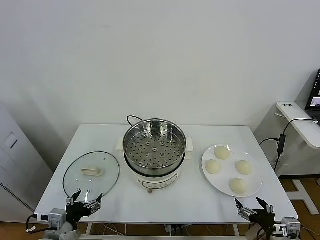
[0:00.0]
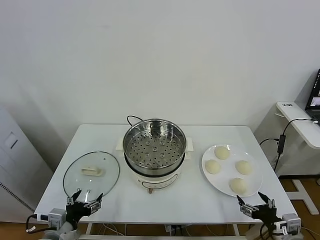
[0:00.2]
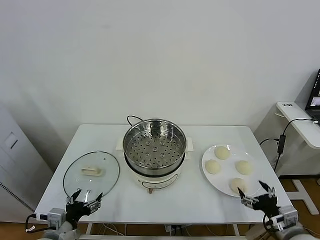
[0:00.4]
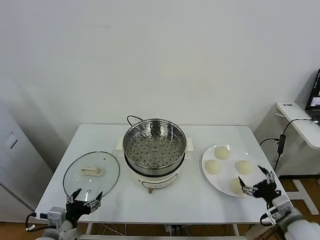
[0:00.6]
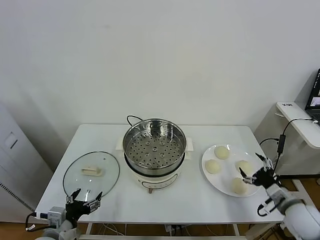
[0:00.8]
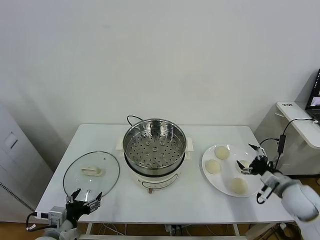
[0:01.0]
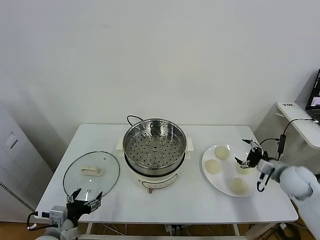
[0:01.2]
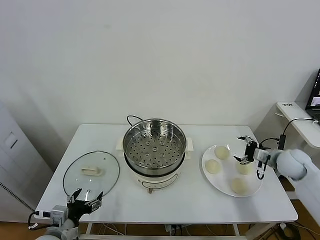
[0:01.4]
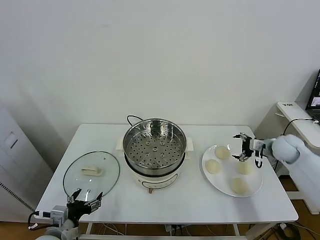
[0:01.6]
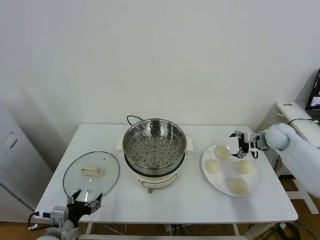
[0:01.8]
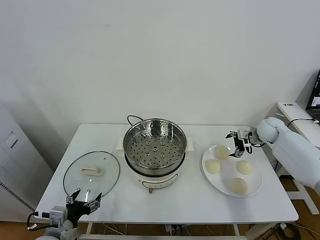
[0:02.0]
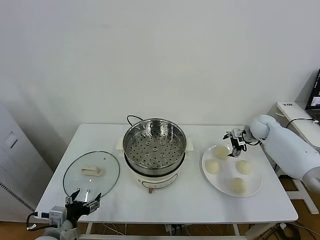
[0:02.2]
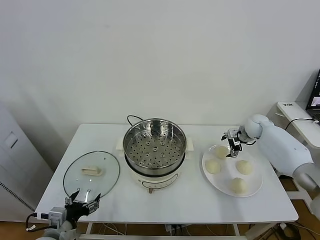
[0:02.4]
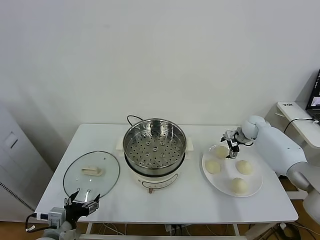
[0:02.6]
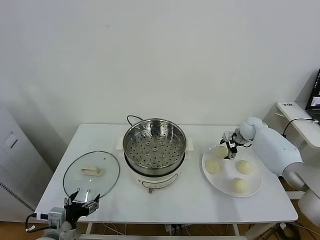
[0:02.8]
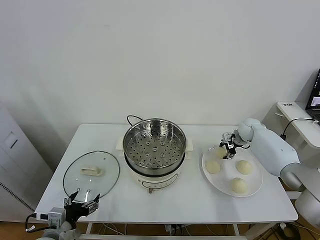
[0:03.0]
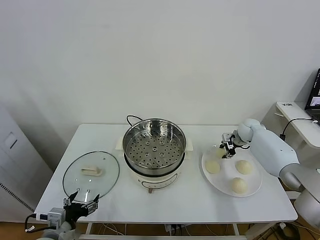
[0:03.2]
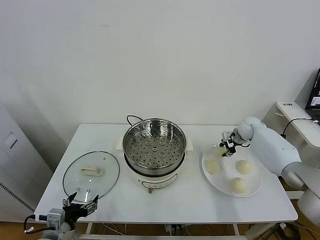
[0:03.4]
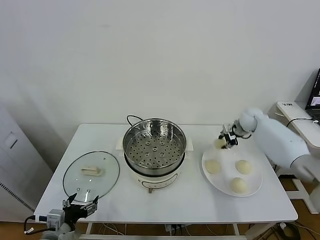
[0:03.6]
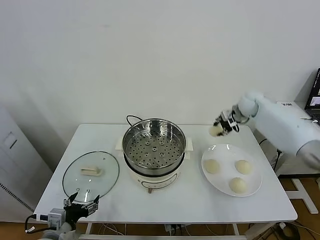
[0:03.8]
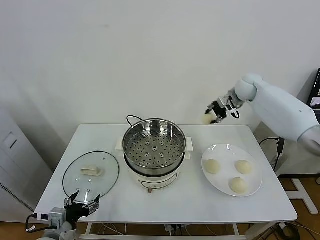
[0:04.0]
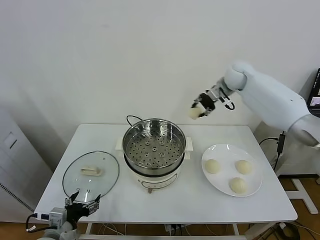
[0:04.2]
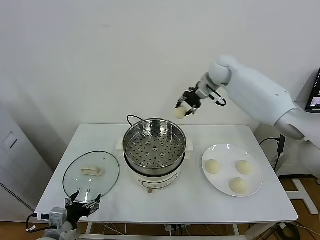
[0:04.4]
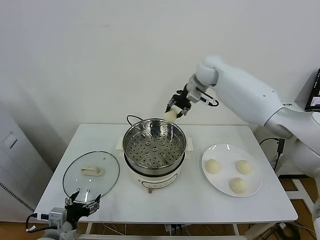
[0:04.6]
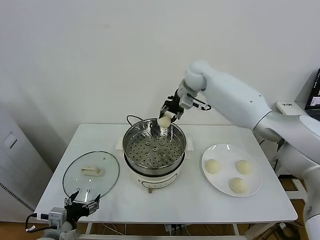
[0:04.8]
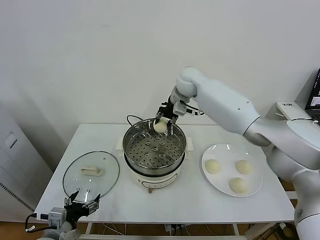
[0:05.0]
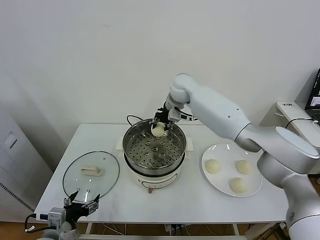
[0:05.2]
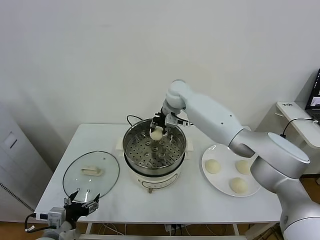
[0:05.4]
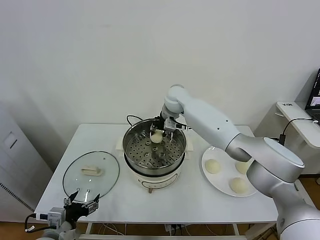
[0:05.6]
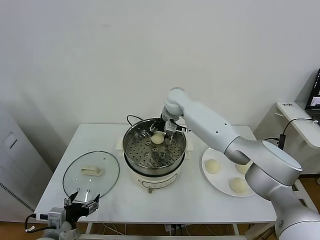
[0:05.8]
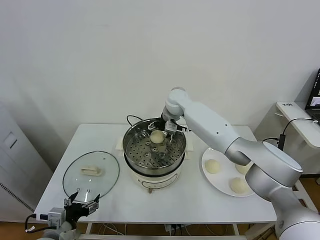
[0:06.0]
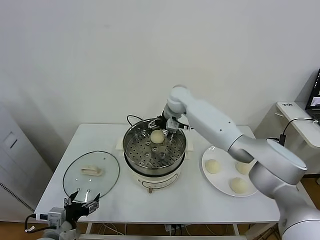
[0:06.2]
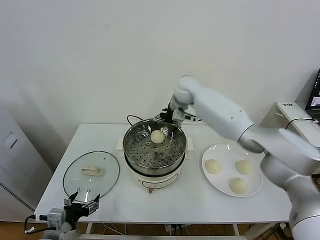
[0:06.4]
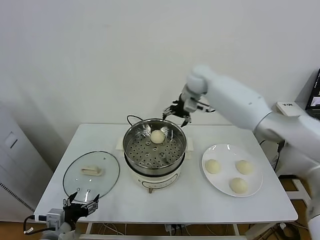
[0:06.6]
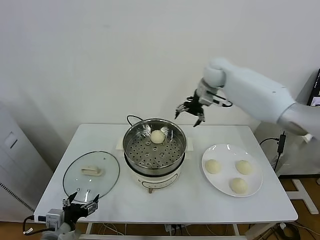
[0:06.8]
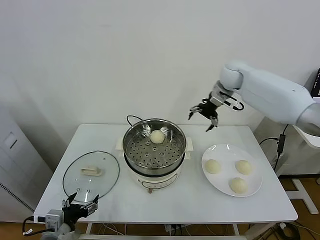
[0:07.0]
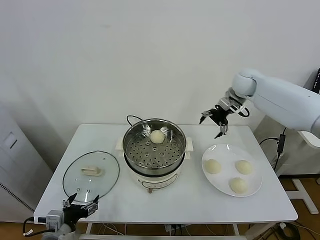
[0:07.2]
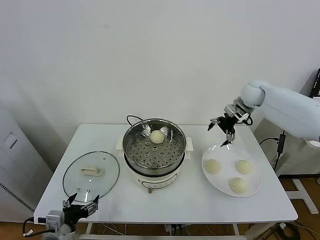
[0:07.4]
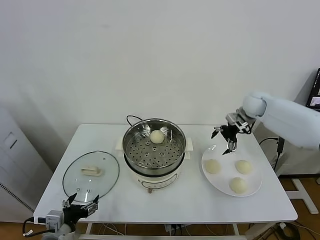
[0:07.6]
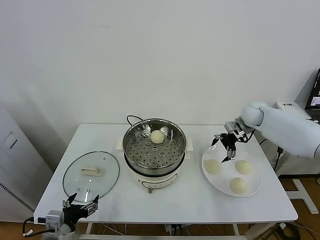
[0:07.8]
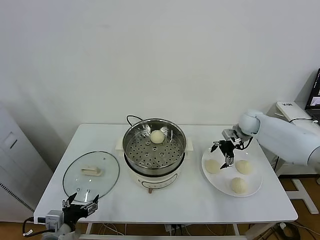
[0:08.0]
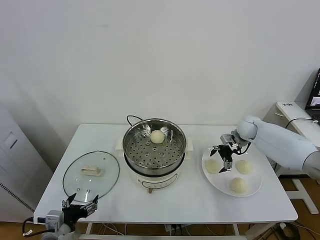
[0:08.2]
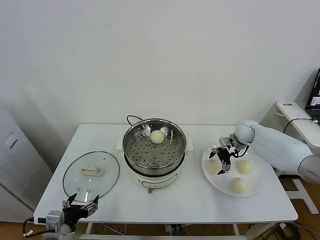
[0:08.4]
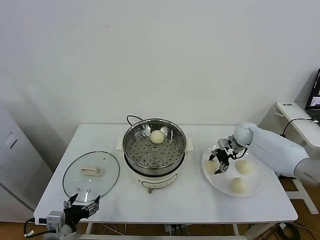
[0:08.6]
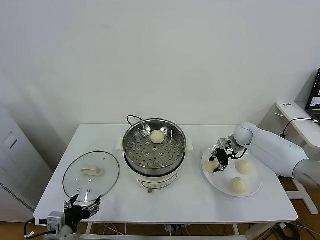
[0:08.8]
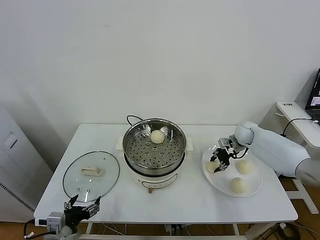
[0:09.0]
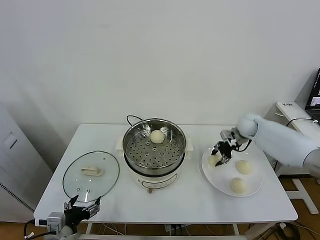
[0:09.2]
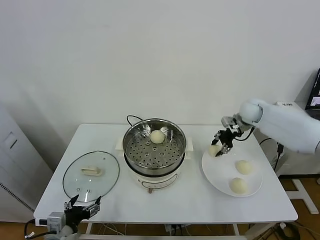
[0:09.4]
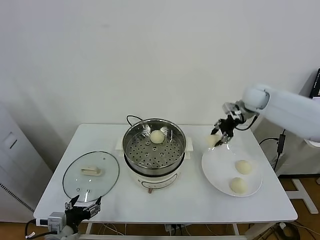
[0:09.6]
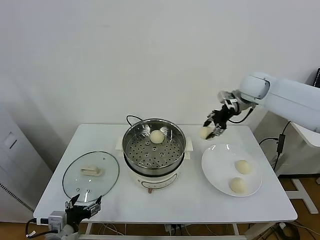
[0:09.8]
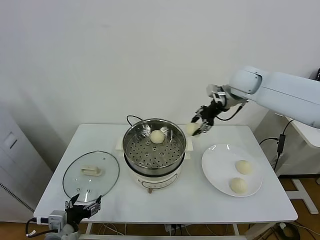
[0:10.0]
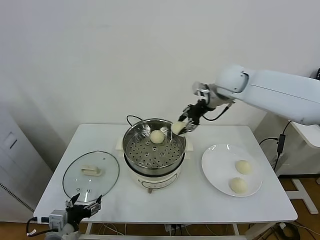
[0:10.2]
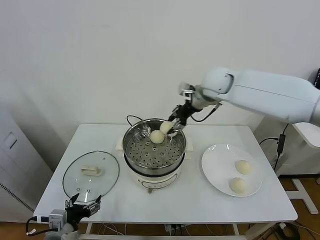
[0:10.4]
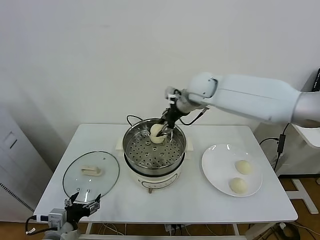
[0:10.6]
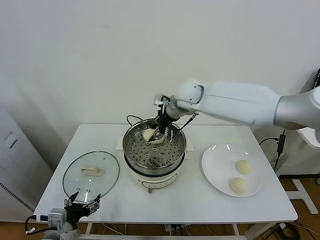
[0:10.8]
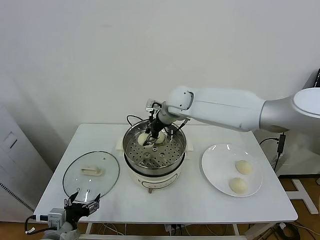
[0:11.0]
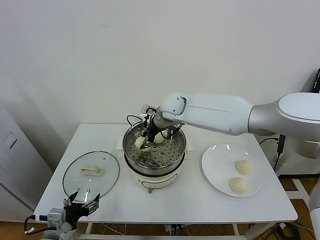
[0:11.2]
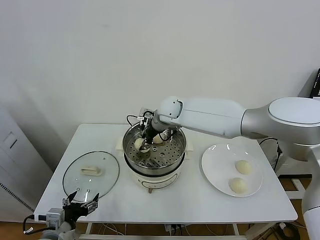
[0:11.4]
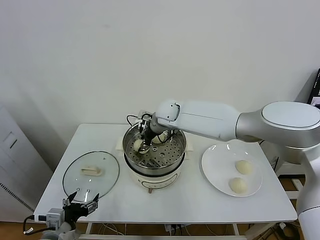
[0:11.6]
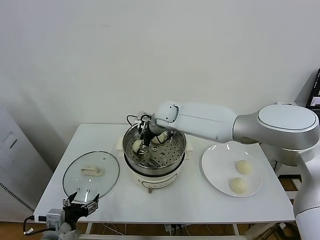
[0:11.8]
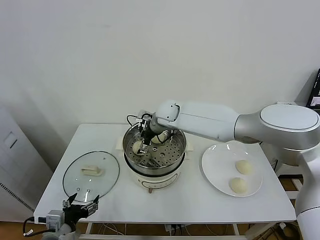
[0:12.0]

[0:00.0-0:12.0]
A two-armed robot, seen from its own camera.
Task of the whole recording: take steamed baozi put them in steamer.
Step, 0.0 to 2.8 s: Grasp the baozi in the plate with right gripper.
Step, 3.2 to 6.0 s: Place the baozi on the steamer with right gripper.
Step, 6.2 to 8.6 s: Grasp the baozi in the plate with right gripper.
Step, 8.8 to 12.0 s: Place the baozi on the steamer with right gripper.
1.6 to 3.0 s: The right gripper heads forward, to the left and downward, covering approximately 15 cm, and closes up.
3.0 to 4.4 s: The right gripper travels upward and to the left by some 35 cm.
4.4 to 6.0 s: The right gripper travels downward and to the left by about 15 cm, and opens its fingers.
6.0 to 7.6 s: The right gripper is displaced to the right by some 30 cm.
7.6 to 9.0 s: The right gripper moves downward, some 10 cm, and closes.
9.0 to 10.4 s: The right gripper is displaced upward and to the left by about 30 cm.
10.4 to 12.0 s: The right gripper shifts roughly 15 cm to the left and downward, and opens up.

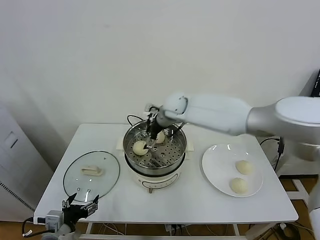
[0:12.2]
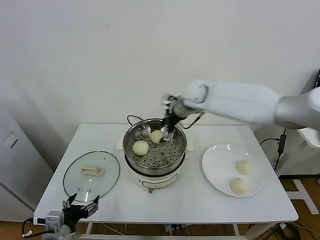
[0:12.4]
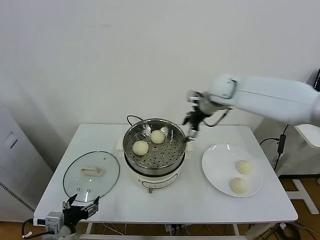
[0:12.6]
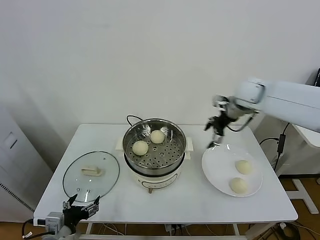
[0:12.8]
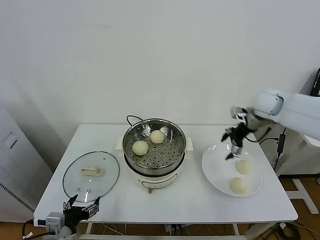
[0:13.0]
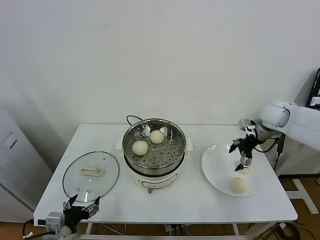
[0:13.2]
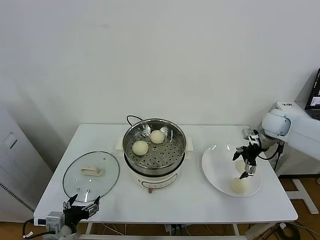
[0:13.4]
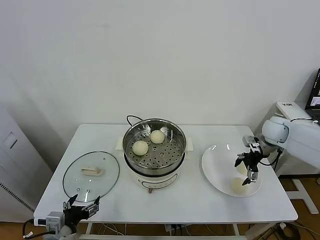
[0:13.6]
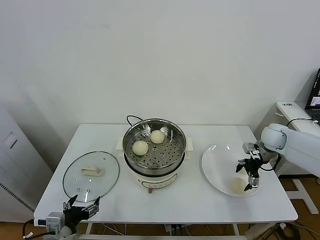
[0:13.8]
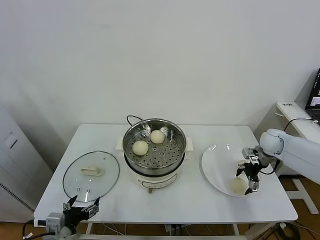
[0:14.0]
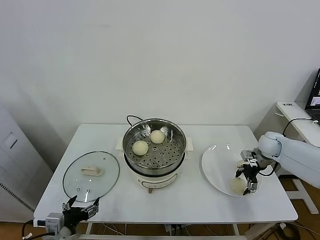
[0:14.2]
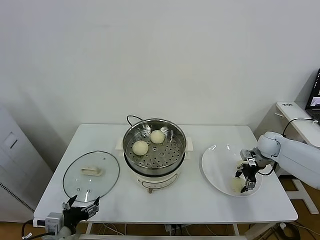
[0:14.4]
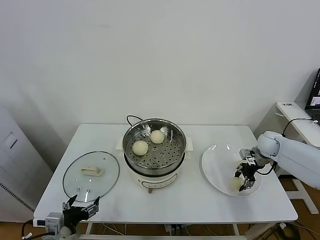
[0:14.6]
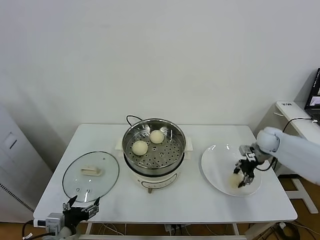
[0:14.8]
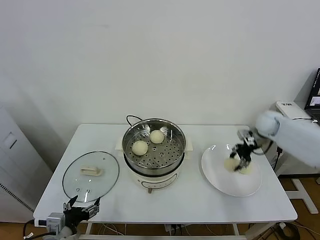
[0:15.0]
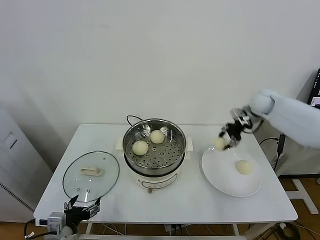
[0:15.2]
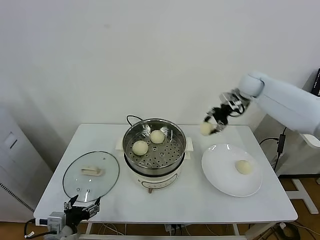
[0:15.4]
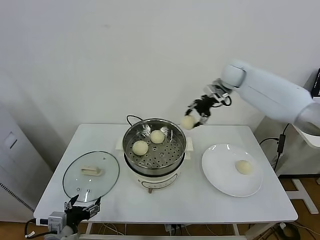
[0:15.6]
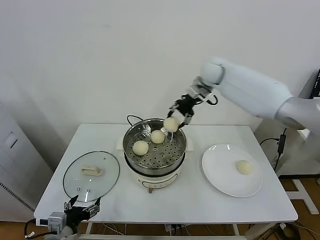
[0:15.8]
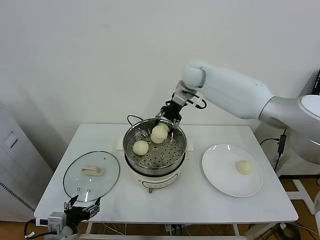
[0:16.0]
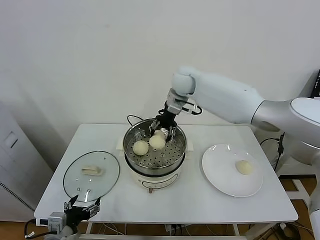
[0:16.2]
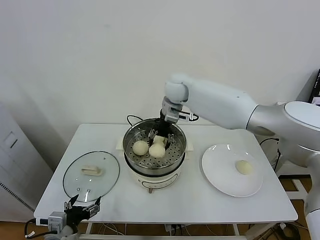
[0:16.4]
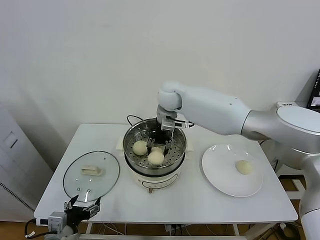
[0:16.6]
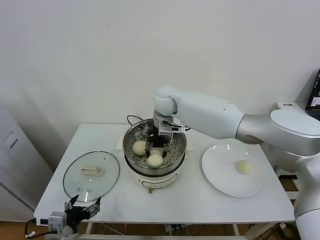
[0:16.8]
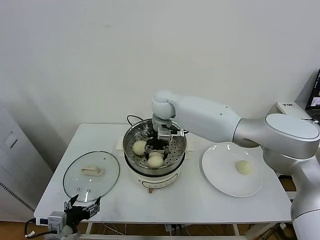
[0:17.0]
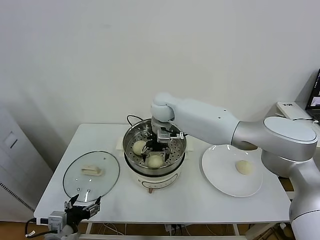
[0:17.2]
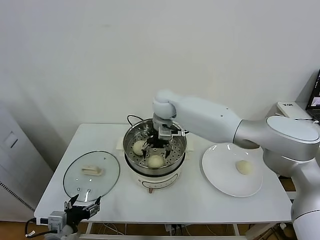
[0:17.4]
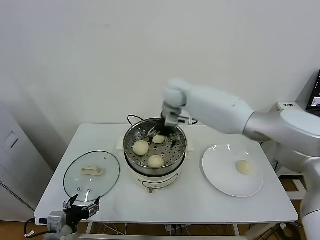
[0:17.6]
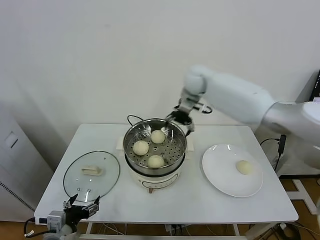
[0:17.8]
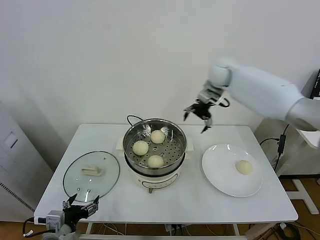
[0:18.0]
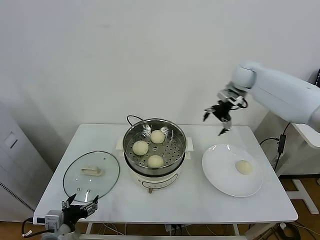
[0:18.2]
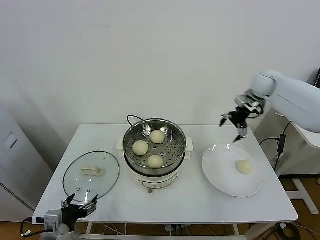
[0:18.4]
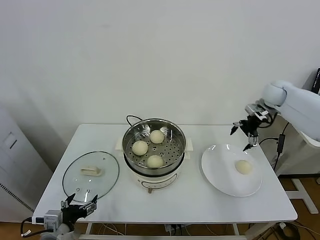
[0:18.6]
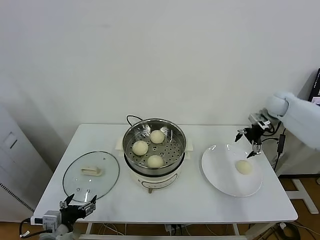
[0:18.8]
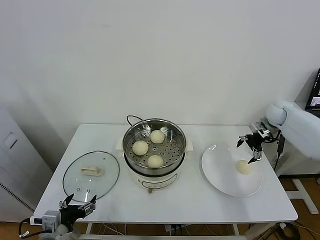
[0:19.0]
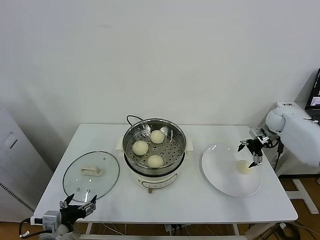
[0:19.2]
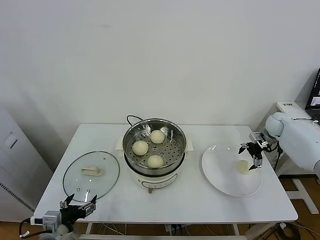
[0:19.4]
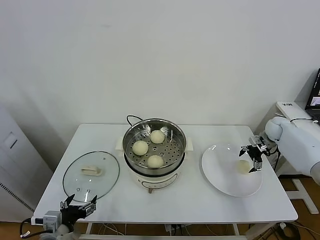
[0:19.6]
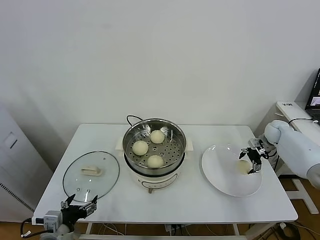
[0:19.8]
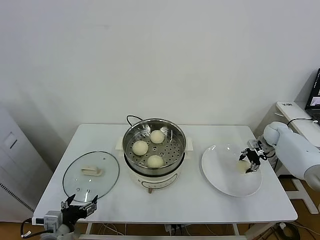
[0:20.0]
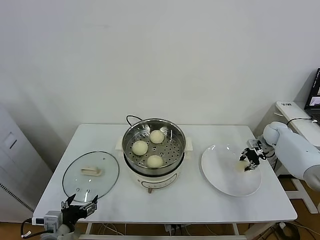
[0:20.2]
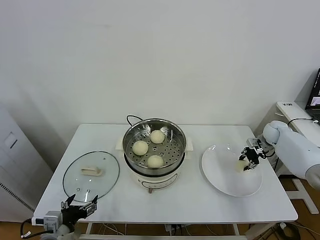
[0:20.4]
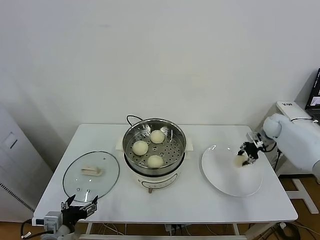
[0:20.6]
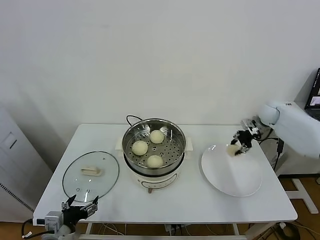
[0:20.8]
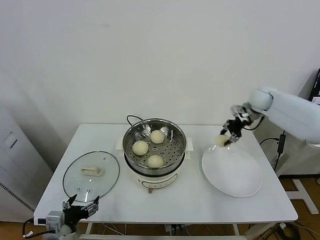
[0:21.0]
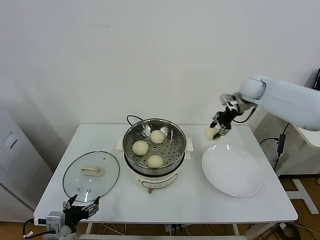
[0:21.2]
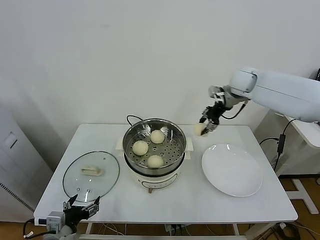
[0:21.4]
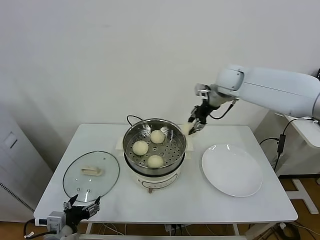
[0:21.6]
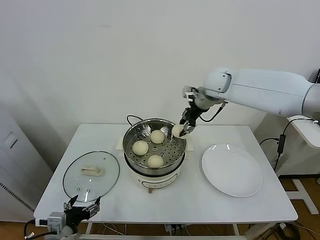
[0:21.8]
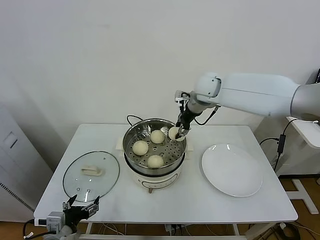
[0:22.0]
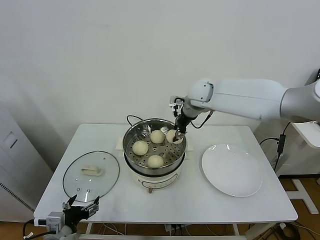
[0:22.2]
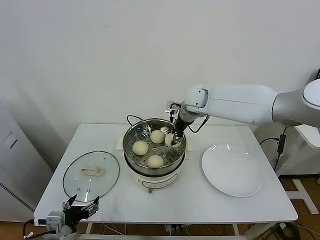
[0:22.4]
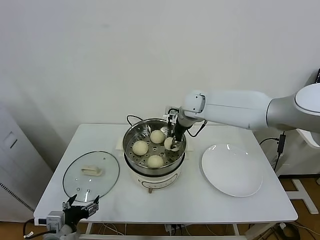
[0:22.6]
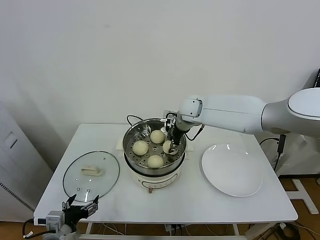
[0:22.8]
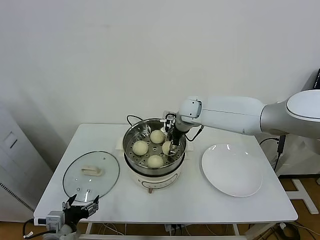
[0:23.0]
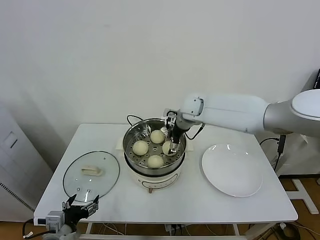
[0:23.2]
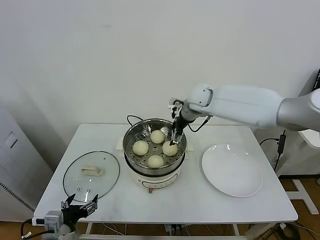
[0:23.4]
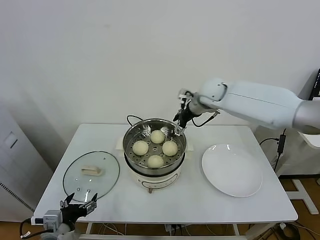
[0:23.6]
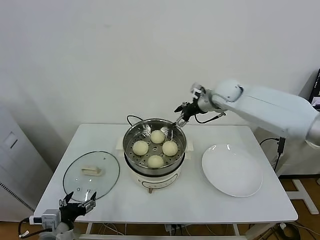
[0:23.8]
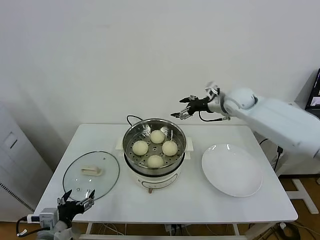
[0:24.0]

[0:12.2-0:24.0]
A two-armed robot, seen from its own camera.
Task of the whole recording: take steamed baozi put them in steamer.
Step, 12.2 to 14.4 s: Grasp the baozi in the plate with right gripper.
Step, 14.6 to 17.2 s: Place the baozi on the steamer with right gripper.
Step, 17.4 to 20.0 s: Grasp the baozi in the plate with right gripper.
Step, 20.2 to 23.2 s: Place the baozi on the steamer with right gripper.
12.2 to 13.6 s: The right gripper shifts about 35 cm to the right.
13.6 to 15.2 s: The right gripper shifts approximately 15 cm upward, forward and to the left, and closes.
15.2 to 16.6 s: The right gripper shifts about 35 cm to the left.
16.6 to 18.2 s: The right gripper heads to the right, covering some 30 cm, and opens up.
18.2 to 19.6 s: The right gripper is displaced downward and to the right by roughly 30 cm.
19.6 to 21.0 s: The right gripper shifts some 20 cm upward and to the left, and closes its fingers.
21.0 to 22.6 s: The right gripper shifts some 25 cm to the left.
22.6 to 24.0 s: The right gripper is displaced to the right by some 15 cm, and opens.
